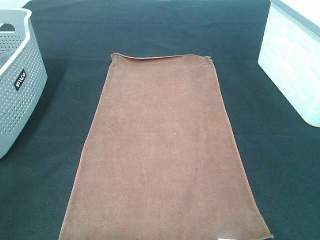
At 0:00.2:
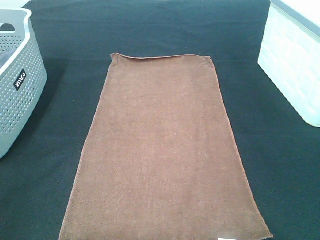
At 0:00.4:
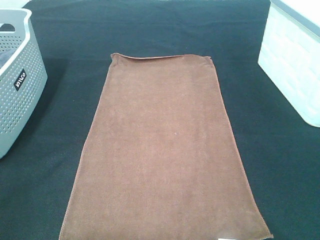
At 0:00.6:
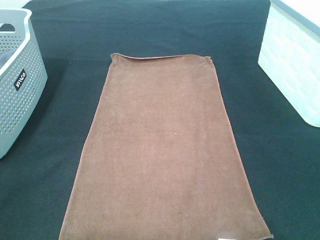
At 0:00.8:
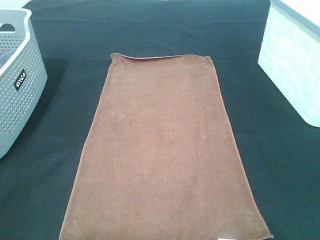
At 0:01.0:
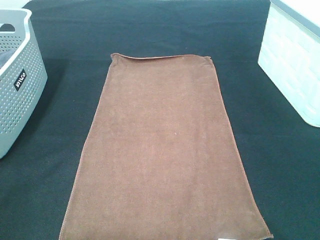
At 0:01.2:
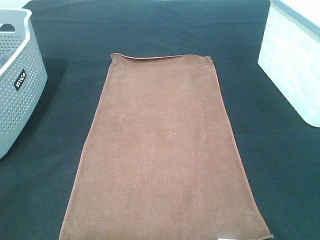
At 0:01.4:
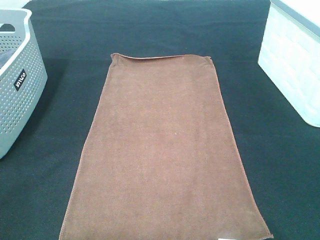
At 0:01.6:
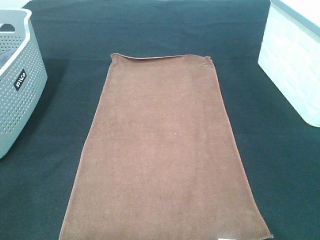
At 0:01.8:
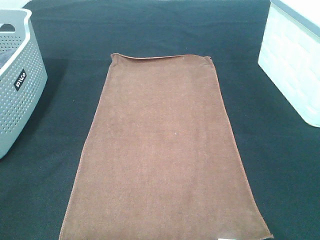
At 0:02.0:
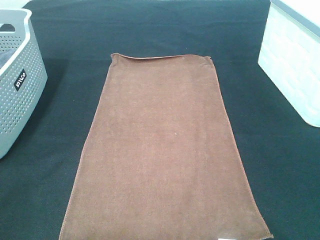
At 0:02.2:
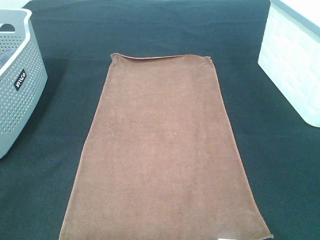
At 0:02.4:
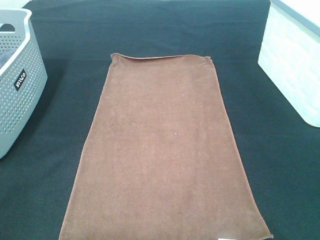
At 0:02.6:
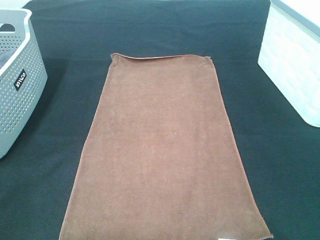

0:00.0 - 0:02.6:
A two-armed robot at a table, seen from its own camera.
Task of the whole recording: Remove the towel and place it.
0:01.2 - 0:02.6: The two grippers keep their place.
